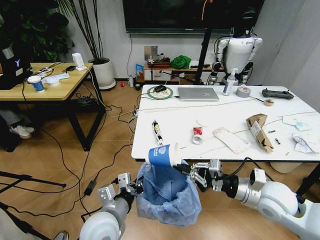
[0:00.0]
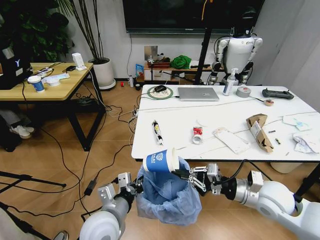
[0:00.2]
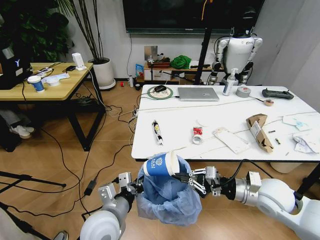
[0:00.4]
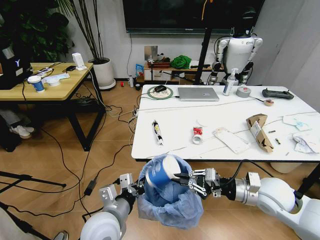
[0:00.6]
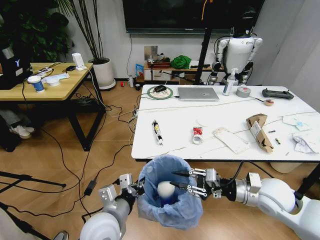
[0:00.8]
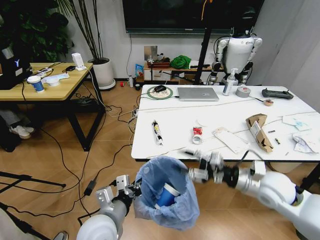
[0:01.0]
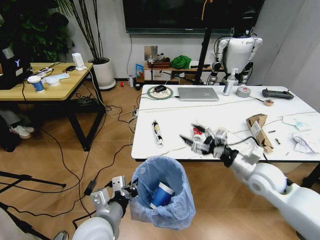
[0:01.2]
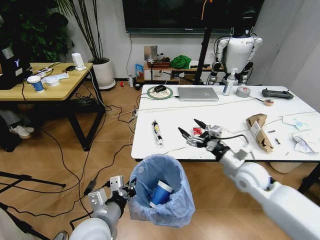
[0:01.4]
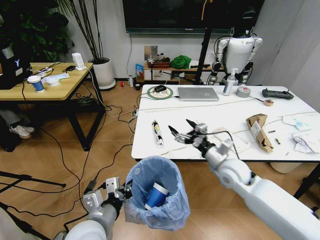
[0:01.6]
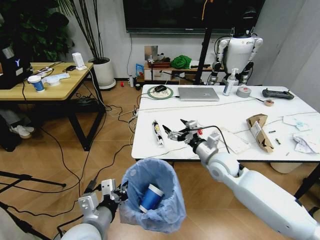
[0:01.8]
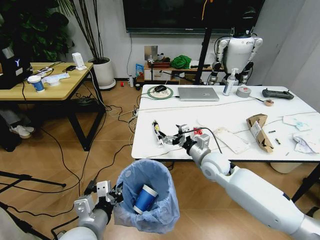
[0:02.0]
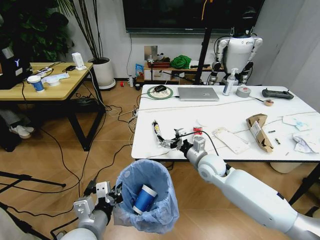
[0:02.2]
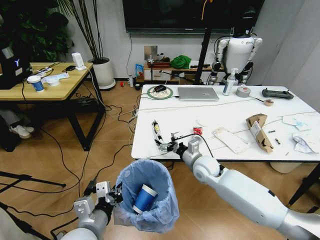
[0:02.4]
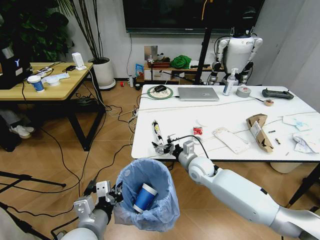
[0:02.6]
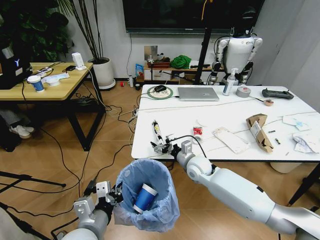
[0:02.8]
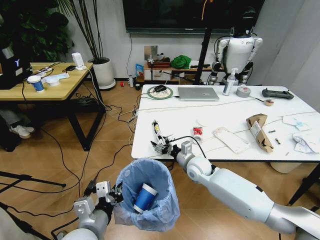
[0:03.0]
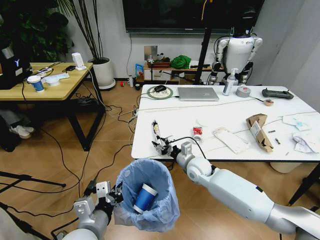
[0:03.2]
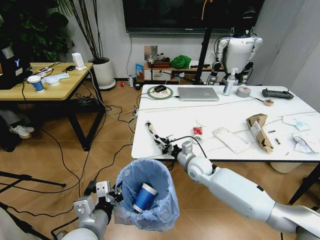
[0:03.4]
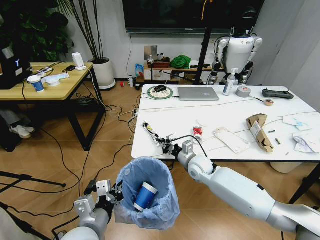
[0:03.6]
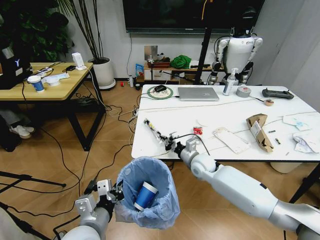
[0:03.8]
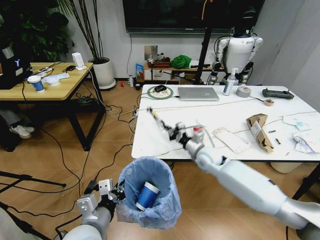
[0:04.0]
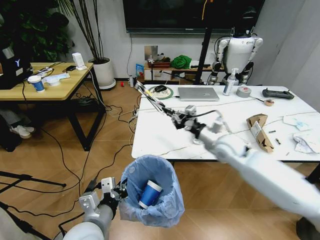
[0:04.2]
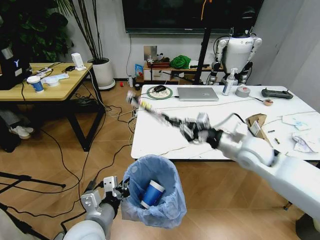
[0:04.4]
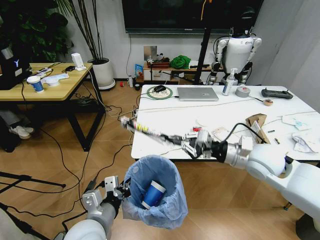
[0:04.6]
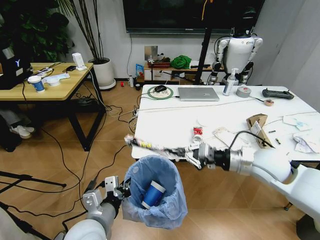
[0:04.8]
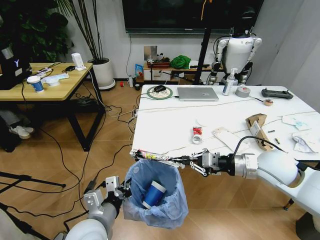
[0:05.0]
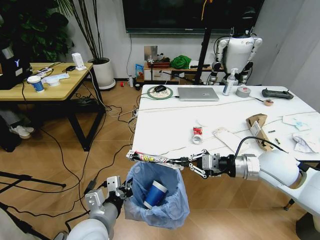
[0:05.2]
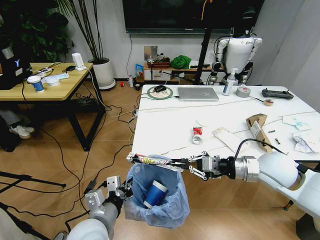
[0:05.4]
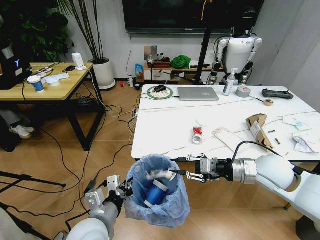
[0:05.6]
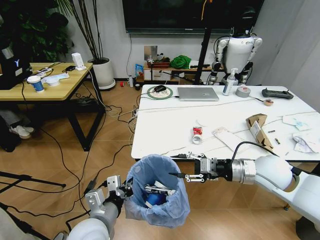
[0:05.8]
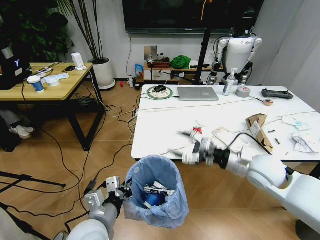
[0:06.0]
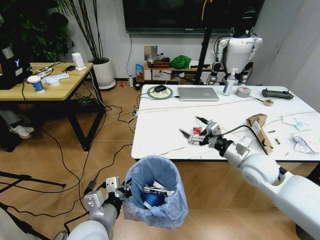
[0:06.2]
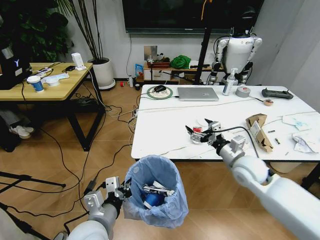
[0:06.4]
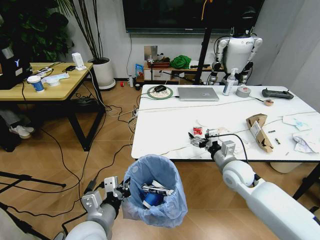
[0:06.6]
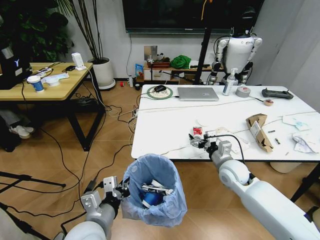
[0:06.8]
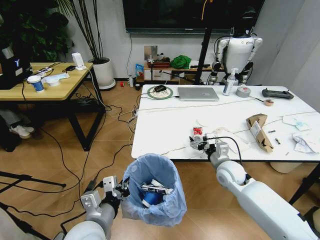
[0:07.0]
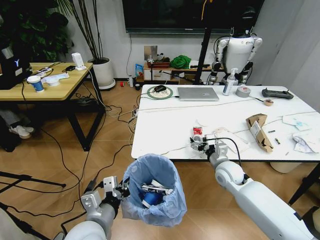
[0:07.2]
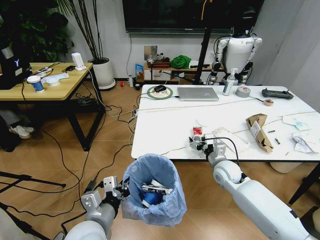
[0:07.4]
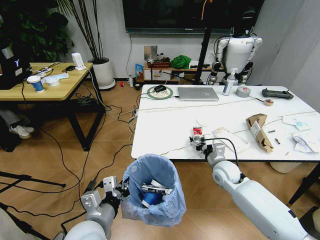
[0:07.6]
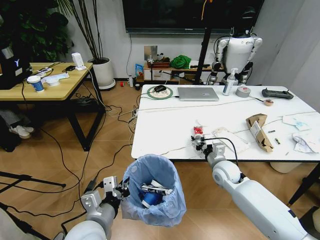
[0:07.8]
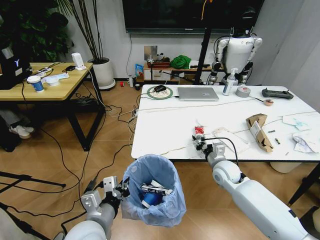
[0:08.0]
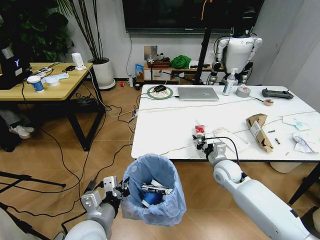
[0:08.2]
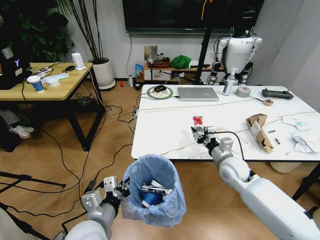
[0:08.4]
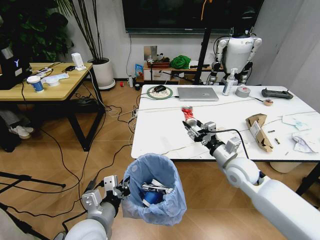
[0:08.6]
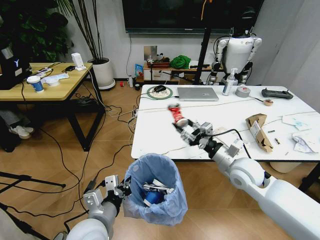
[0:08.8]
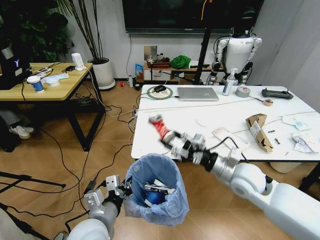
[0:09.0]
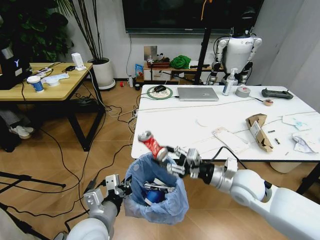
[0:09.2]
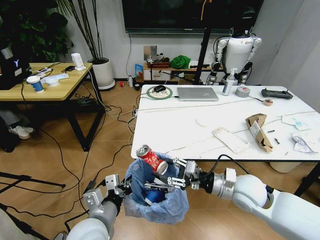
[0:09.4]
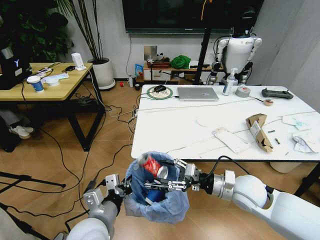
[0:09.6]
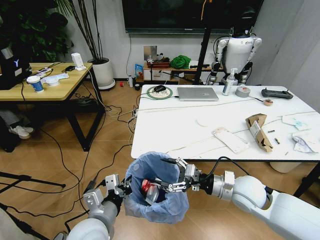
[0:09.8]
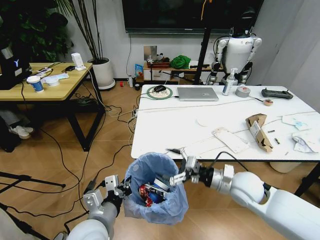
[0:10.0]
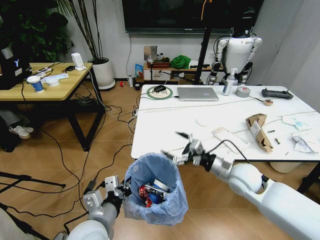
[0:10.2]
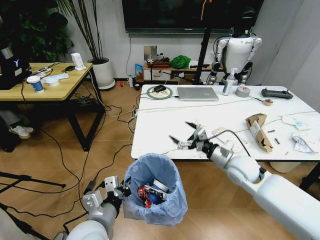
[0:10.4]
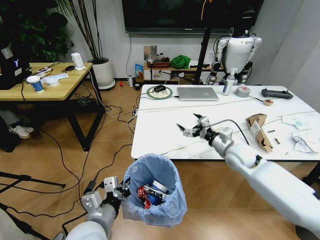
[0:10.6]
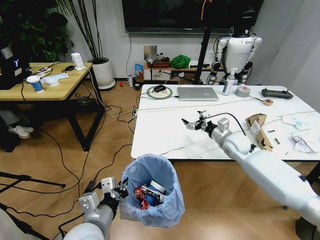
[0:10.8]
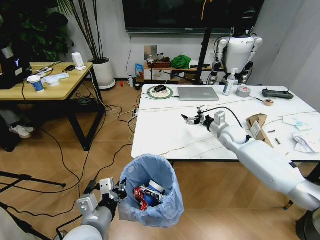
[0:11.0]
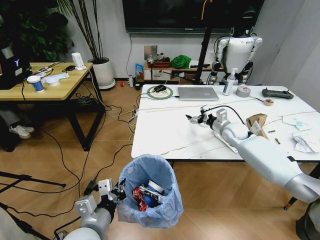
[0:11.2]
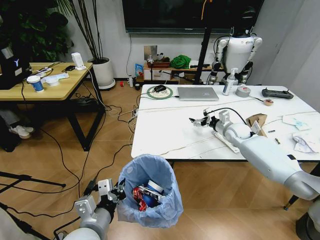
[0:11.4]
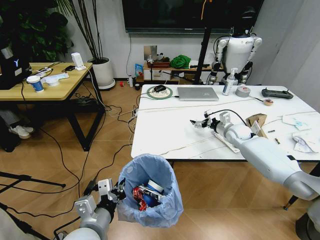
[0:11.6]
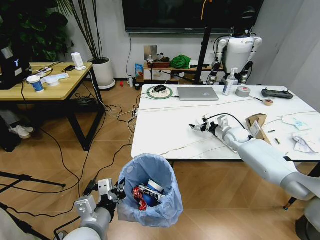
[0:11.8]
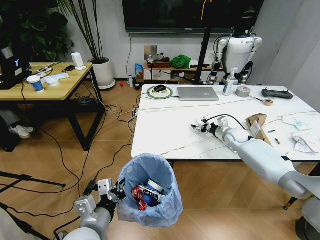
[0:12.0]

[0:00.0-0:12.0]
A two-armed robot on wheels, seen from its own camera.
Task of the whole recording: Pick up the trash bin and place the trash from the table into it.
0:00.0 to 0:01.6: The right gripper is displaced forward and to the left by some 10 cm, and opens its fingers.
0:01.6 to 0:03.0: The right gripper goes about 15 cm to the left, downward and forward.
0:03.0 to 0:04.4: The right gripper shifts roughly 20 cm upward and to the right, and closes up.
0:04.4 to 0:06.0: The right gripper heads backward, covering about 5 cm, and opens.
0:06.0 to 0:07.6: The right gripper goes some 15 cm downward and forward.
0:07.6 to 0:09.0: The right gripper travels upward and backward by some 15 cm, and closes up.
0:09.0 to 0:10.4: The right gripper travels forward by roughly 5 cm, and opens its fingers.
0:10.4 to 0:12.0: The right gripper is displaced forward and to the right by approximately 20 cm.

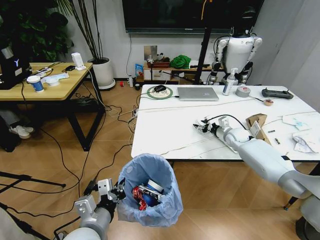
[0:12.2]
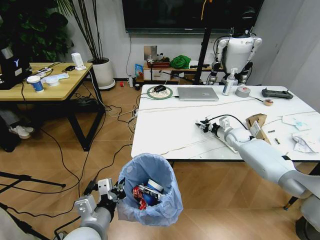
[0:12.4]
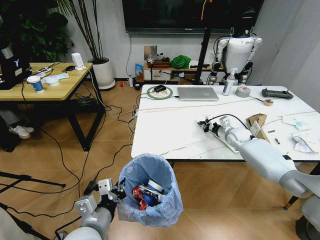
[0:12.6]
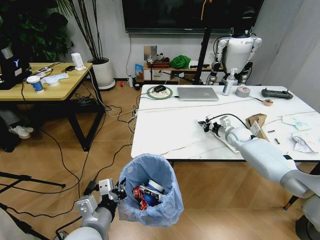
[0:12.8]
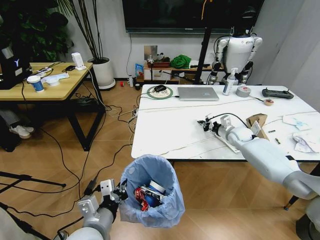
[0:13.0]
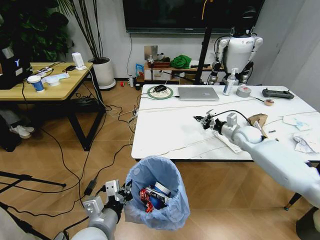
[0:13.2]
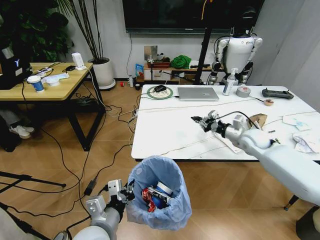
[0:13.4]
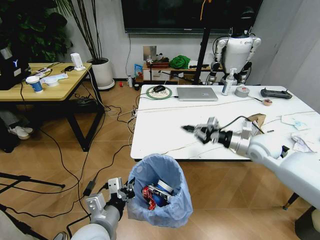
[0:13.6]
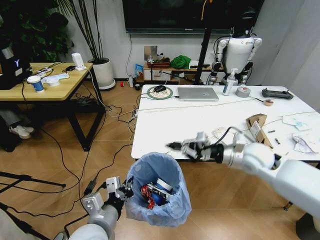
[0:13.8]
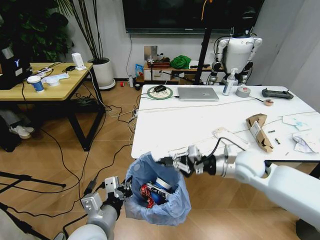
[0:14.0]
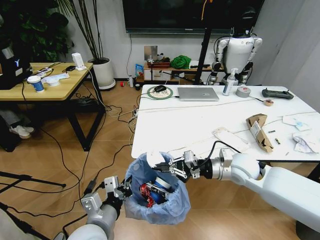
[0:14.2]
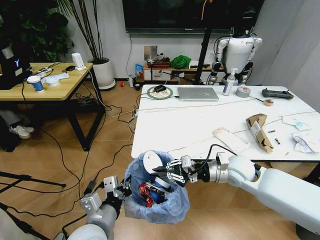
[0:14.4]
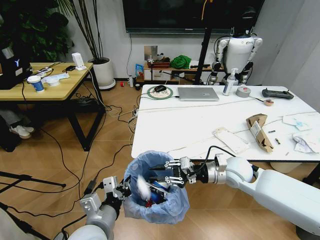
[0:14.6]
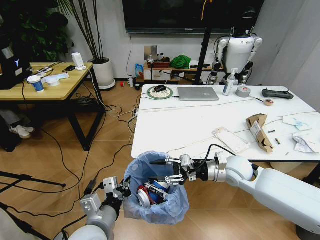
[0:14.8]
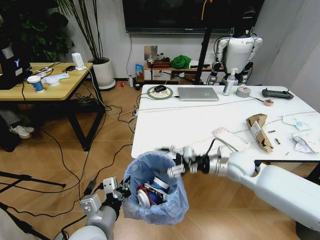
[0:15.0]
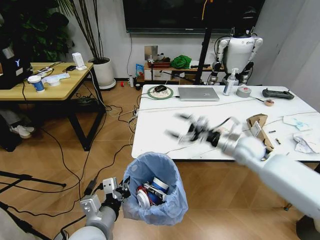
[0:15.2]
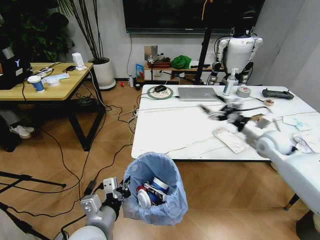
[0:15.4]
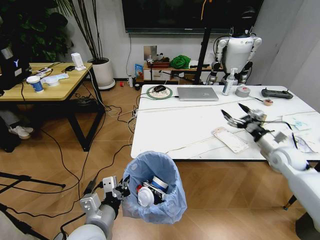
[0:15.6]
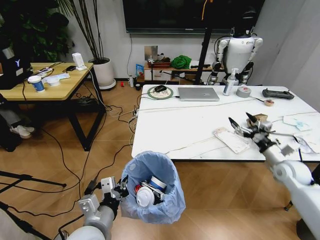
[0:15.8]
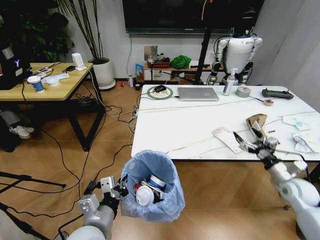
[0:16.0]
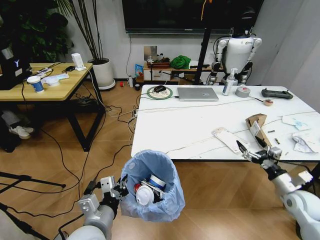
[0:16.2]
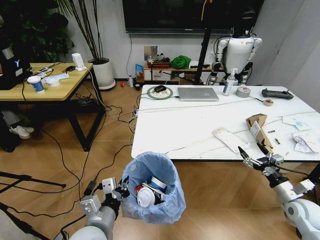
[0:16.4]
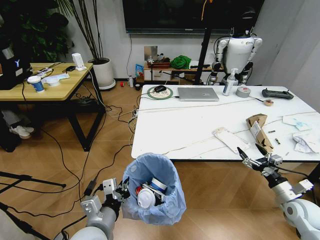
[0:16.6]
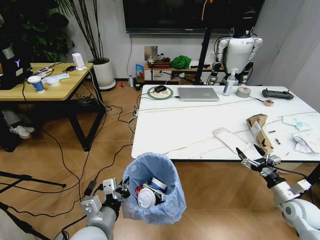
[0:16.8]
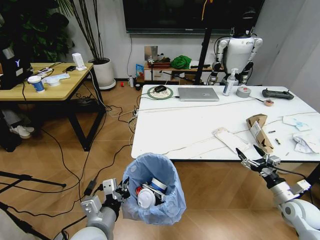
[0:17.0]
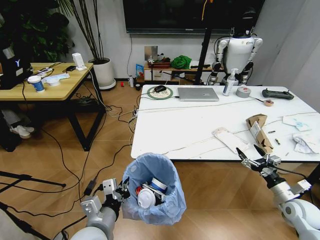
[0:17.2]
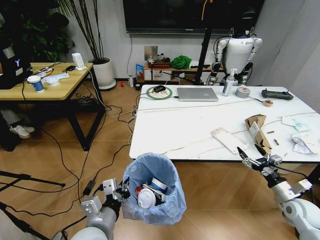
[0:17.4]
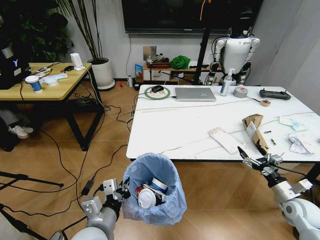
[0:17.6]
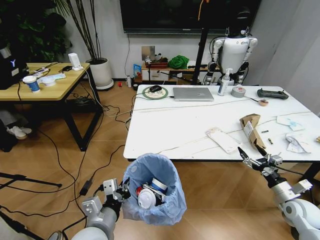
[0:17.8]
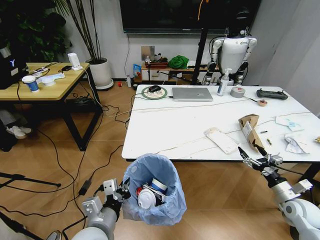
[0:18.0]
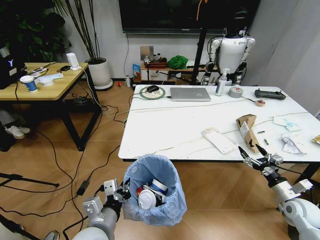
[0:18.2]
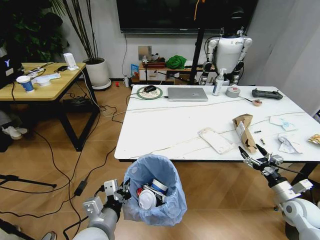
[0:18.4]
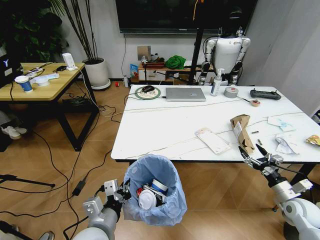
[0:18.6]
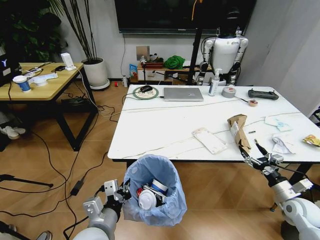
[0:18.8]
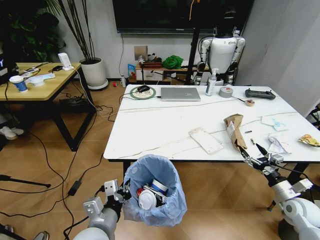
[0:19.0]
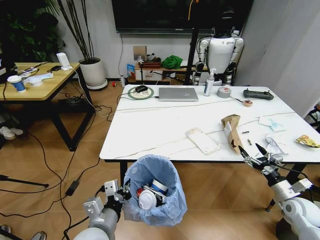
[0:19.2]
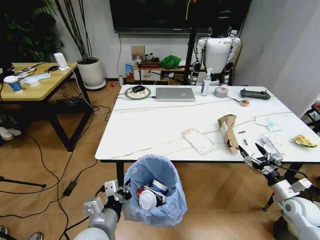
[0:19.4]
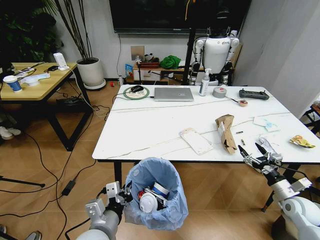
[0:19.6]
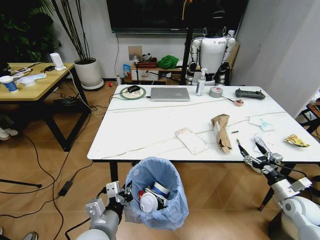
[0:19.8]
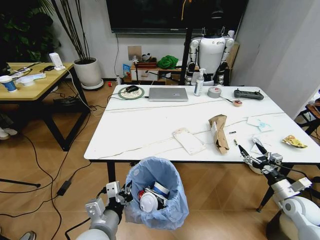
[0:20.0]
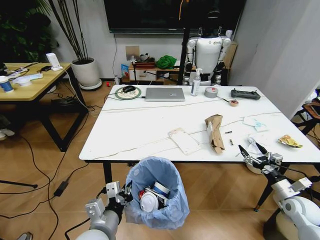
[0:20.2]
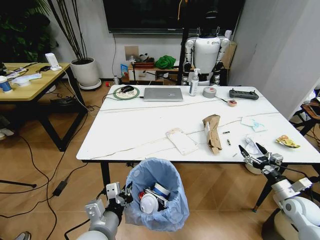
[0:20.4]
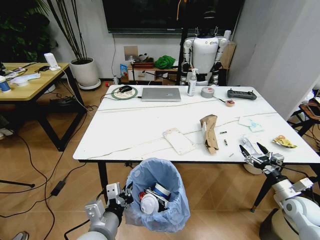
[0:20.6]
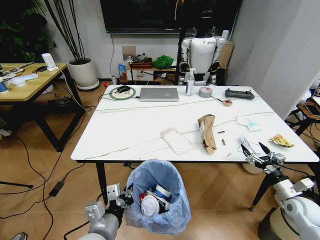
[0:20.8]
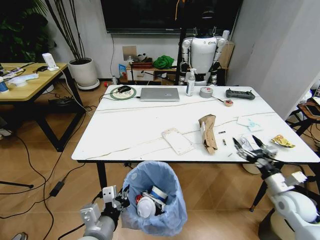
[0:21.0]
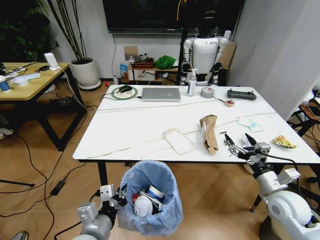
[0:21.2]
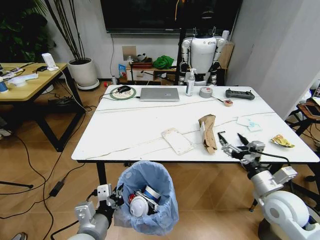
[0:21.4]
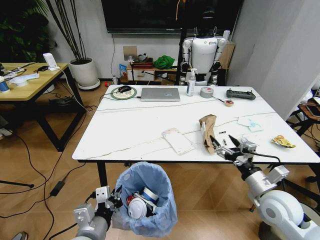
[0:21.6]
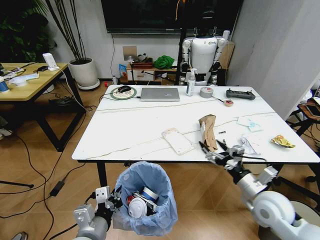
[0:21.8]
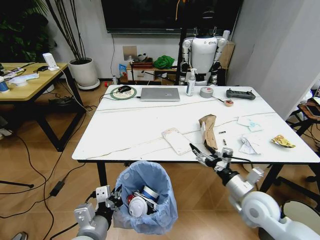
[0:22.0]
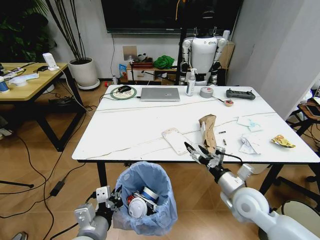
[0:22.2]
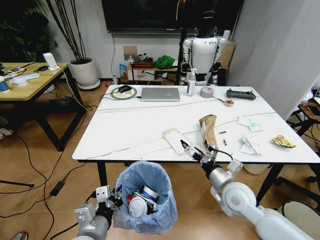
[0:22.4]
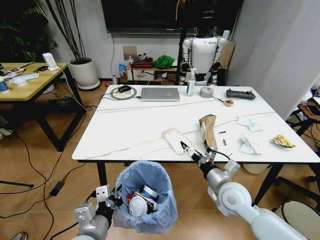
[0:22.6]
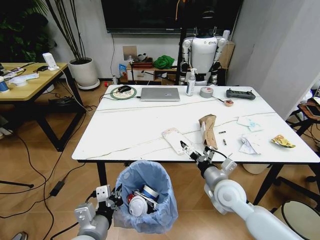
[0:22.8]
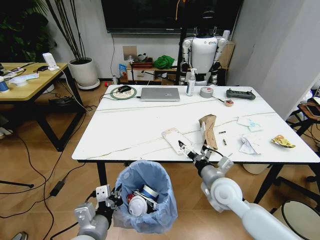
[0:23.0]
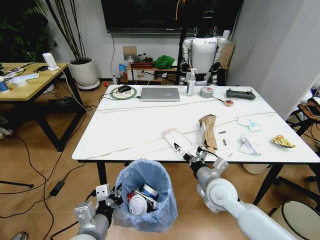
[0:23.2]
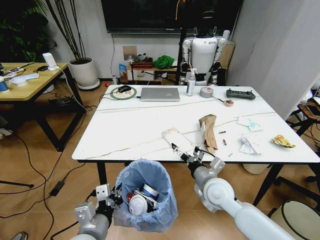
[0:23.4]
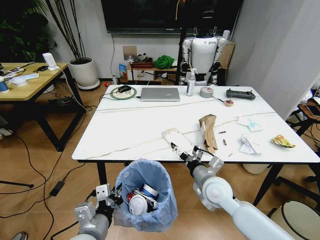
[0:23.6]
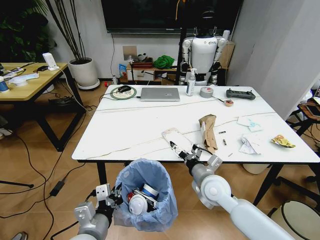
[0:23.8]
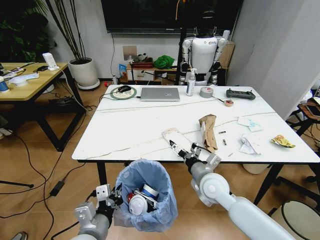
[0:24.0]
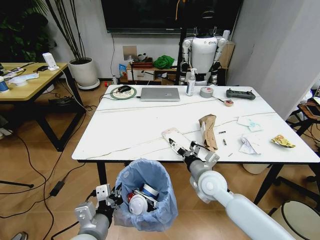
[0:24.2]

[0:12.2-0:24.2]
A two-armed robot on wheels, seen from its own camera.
Task of the whole recording: Pick up the trash bin and place the trash from the table into it.
0:12.2 to 0:13.8: The right gripper shifts roughly 20 cm backward and upward, and closes its fingers.
0:13.8 to 0:15.2: The right gripper opens up.
0:15.2 to 0:16.6: The right gripper shifts approximately 30 cm to the right, backward and downward.
0:19.8 to 0:21.2: The right gripper heads to the left and upward, covering approximately 15 cm.
0:21.2 to 0:22.6: The right gripper shifts some 15 cm to the left.
0:22.6 to 0:24.2: The right gripper moves to the left, approximately 5 cm.
